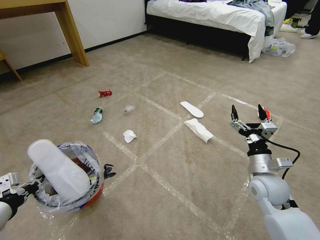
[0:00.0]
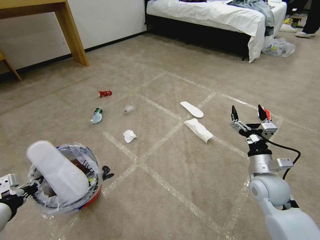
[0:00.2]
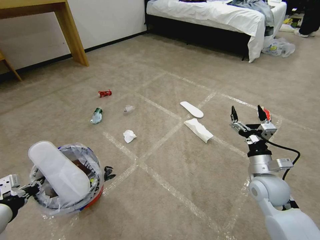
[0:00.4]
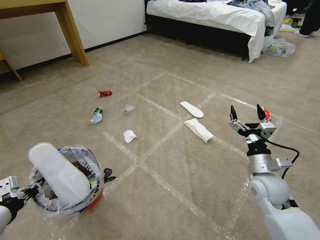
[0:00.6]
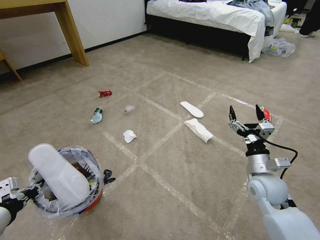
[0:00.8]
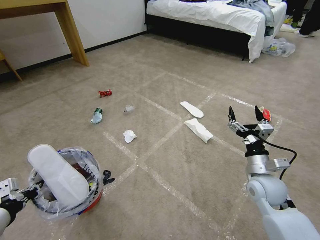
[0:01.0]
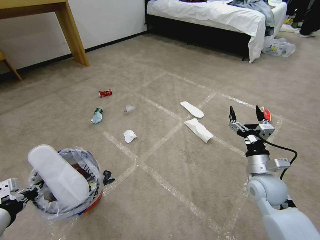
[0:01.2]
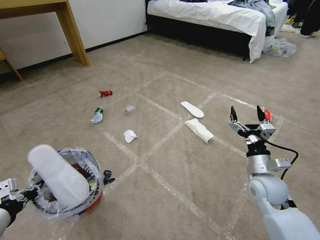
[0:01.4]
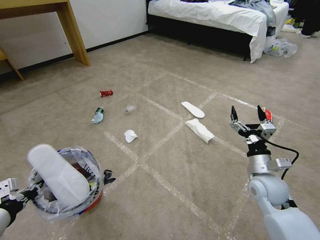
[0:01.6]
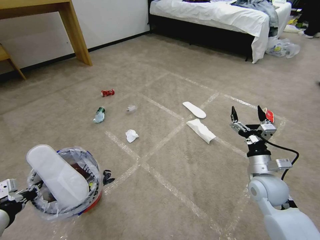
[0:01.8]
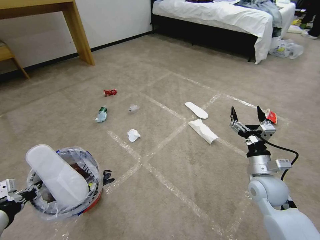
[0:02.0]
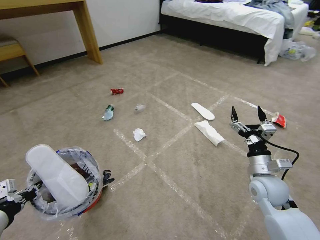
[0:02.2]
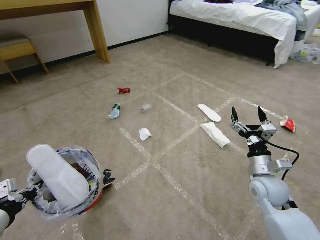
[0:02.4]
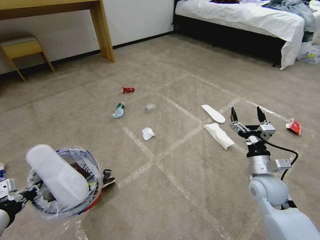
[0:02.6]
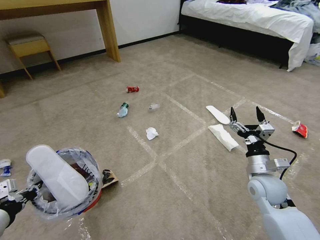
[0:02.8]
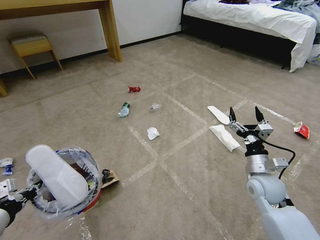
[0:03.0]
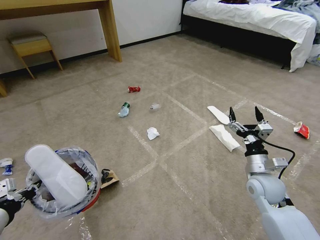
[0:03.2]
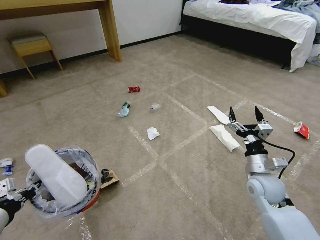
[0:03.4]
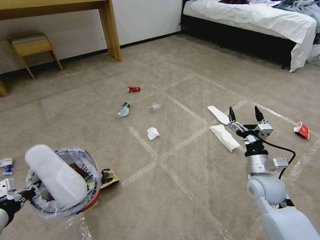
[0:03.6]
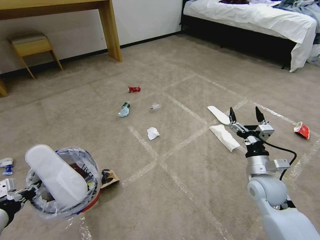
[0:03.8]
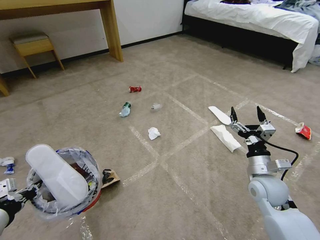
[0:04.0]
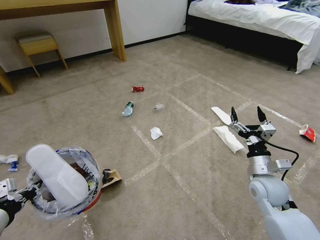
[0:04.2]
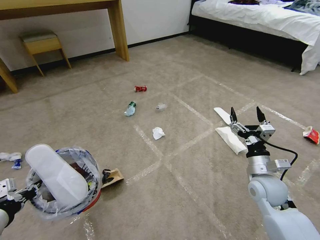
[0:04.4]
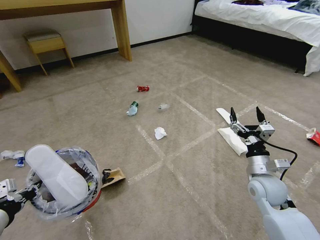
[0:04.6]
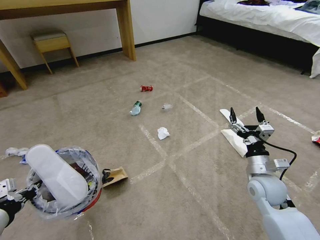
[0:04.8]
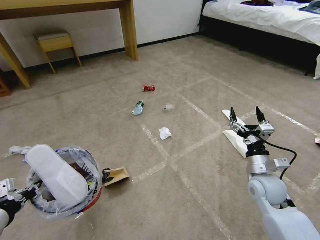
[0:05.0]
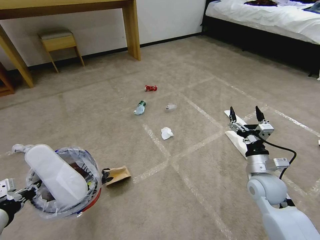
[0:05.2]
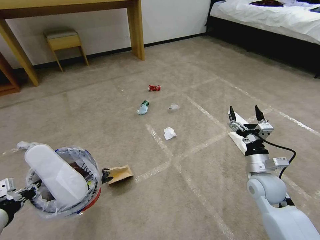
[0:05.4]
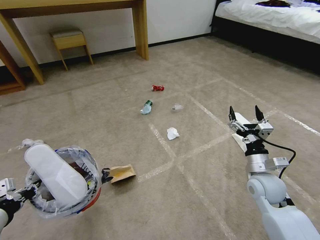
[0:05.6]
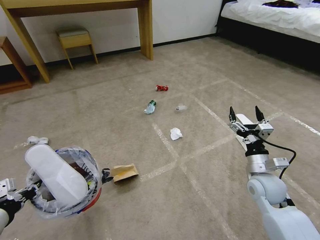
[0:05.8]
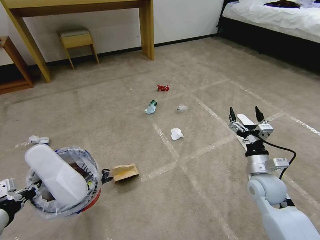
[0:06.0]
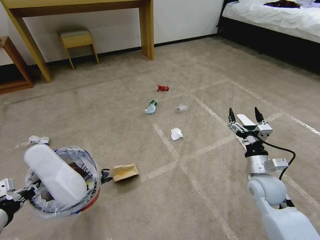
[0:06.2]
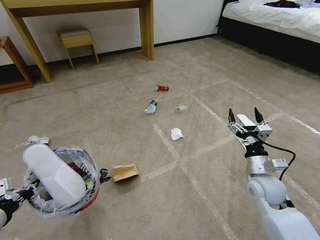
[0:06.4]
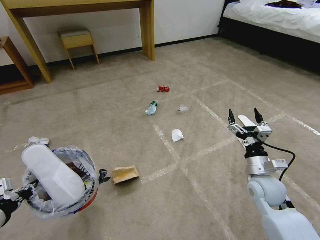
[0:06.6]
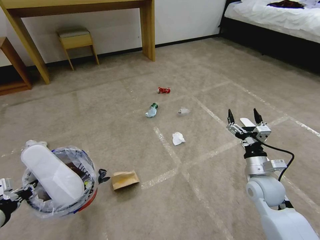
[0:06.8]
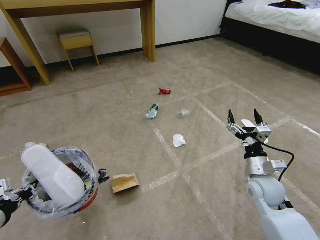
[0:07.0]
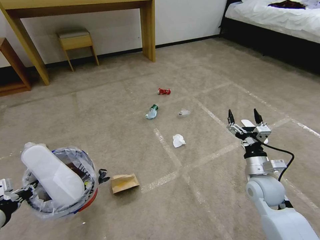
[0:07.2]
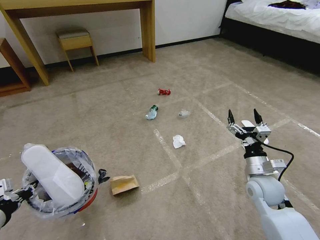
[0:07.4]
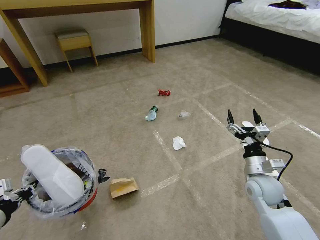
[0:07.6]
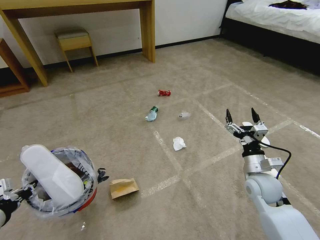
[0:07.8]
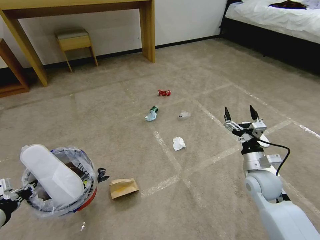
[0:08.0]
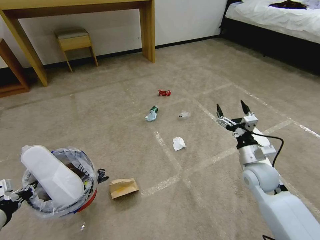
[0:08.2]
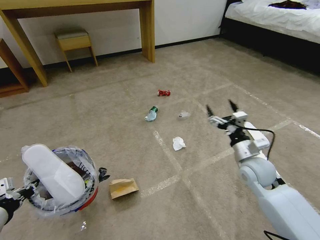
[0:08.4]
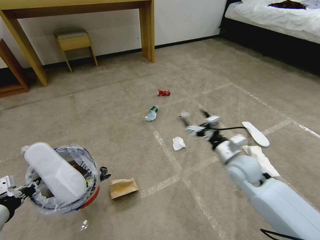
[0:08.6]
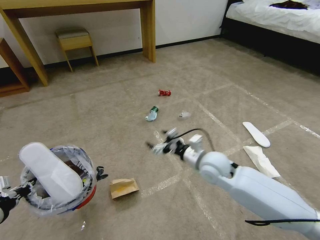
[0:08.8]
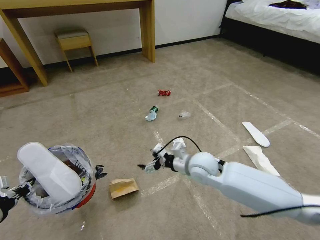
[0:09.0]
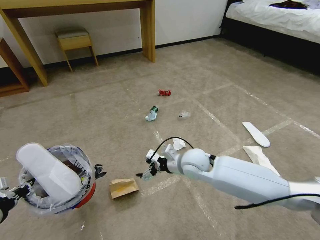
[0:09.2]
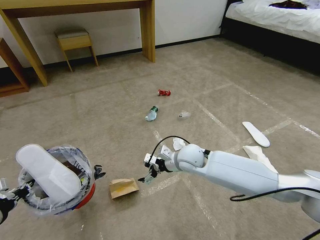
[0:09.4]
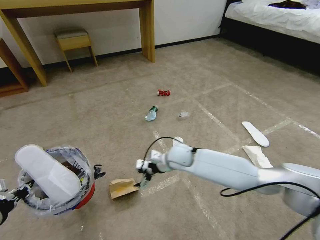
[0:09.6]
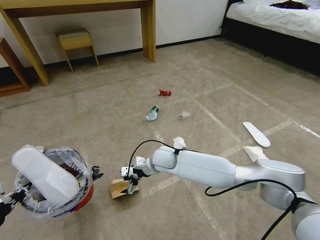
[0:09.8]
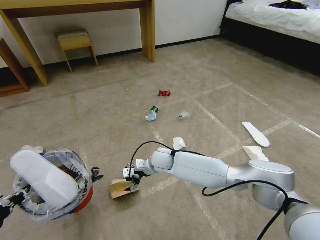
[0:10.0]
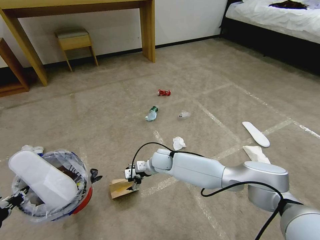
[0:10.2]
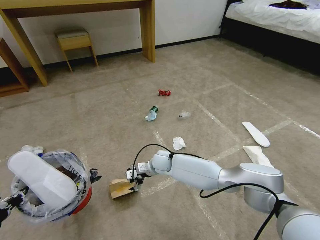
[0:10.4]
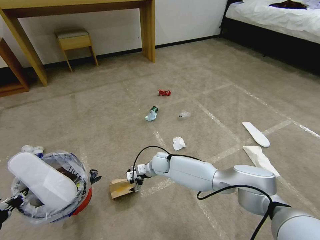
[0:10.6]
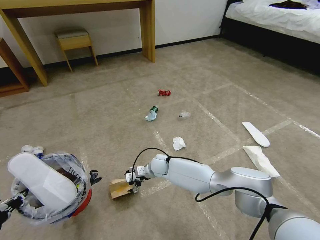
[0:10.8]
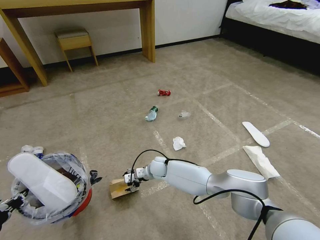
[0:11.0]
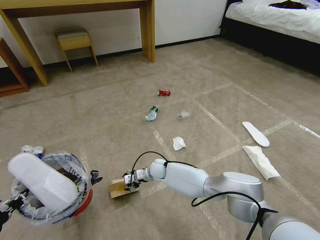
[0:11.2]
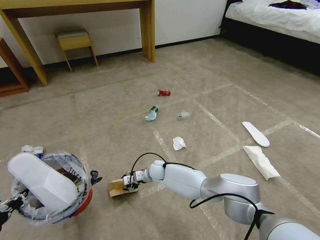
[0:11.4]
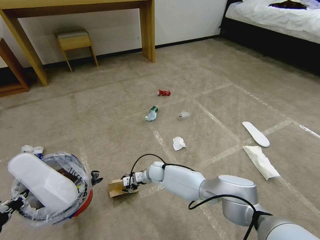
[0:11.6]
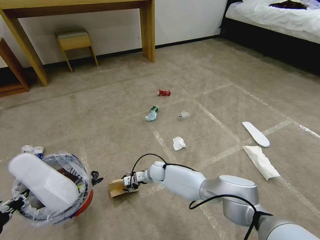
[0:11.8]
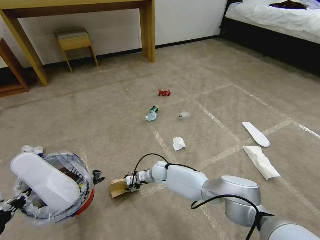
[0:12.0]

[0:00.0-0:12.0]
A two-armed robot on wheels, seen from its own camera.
Task of the whole recording: Pick up the trash bin and place the garbage on the floor into it.
0:00.0 to 0:01.6: Both grippers stay about where they are.
0:03.0 to 0:04.4: Neither gripper changes place.
0:06.0 to 0:07.6: Both grippers stay put.
0:07.6 to 0:09.0: The right gripper travels to the left by roughly 20 cm.
0:09.0 to 0:10.4: The right gripper heads to the left, downward and forward, covering about 20 cm.
0:10.4 to 0:12.0: The right gripper heads downward, covering about 10 cm.

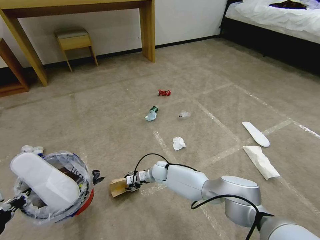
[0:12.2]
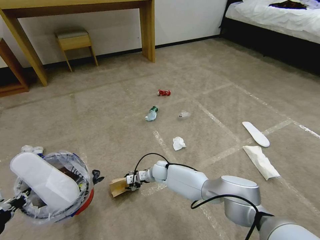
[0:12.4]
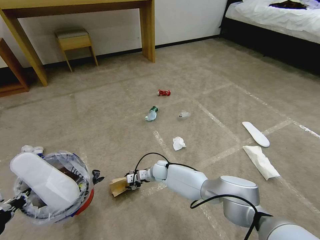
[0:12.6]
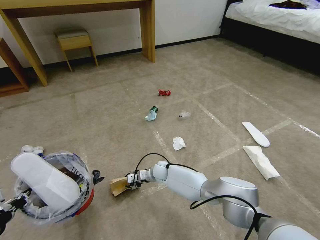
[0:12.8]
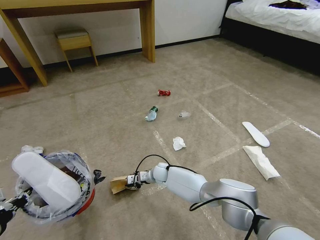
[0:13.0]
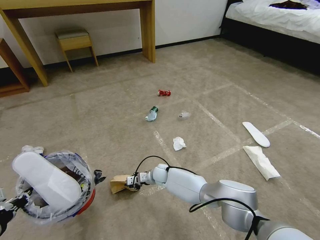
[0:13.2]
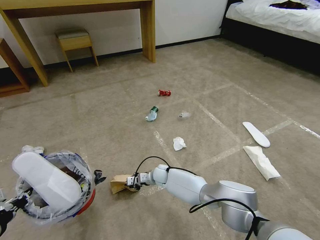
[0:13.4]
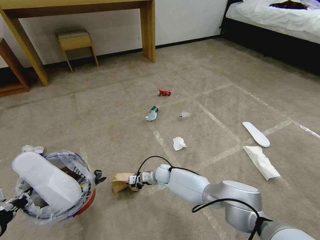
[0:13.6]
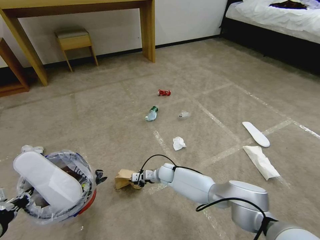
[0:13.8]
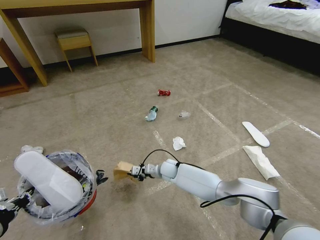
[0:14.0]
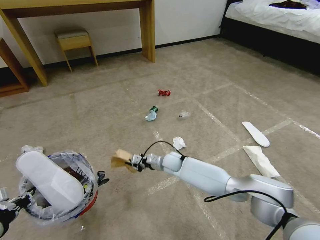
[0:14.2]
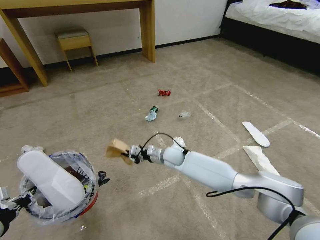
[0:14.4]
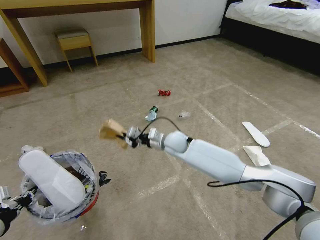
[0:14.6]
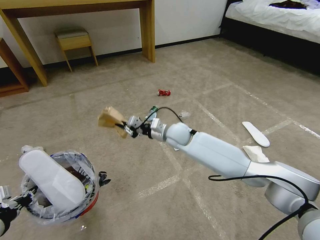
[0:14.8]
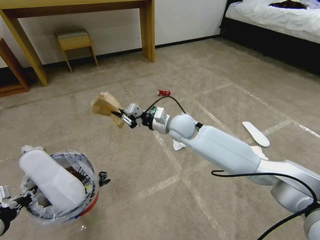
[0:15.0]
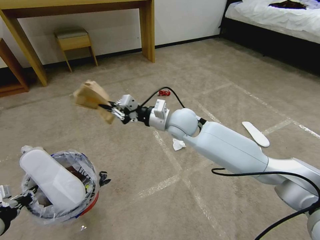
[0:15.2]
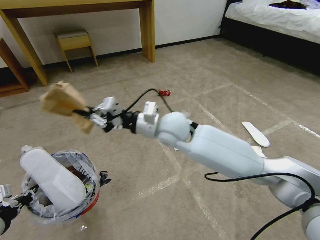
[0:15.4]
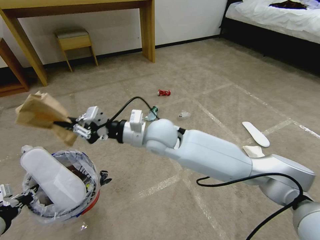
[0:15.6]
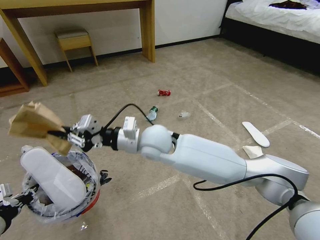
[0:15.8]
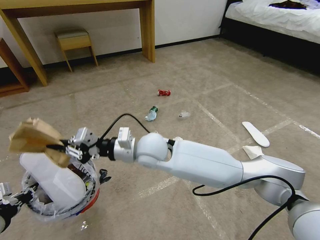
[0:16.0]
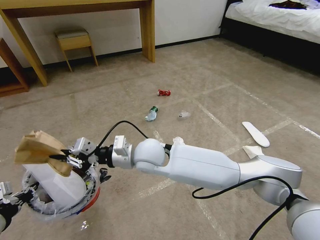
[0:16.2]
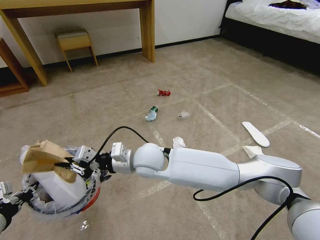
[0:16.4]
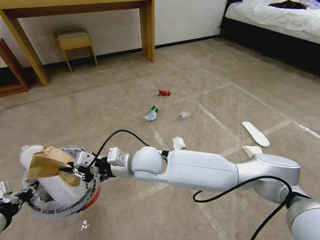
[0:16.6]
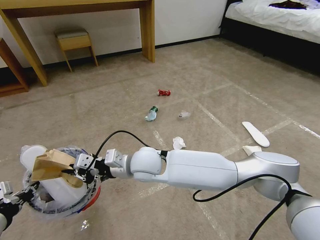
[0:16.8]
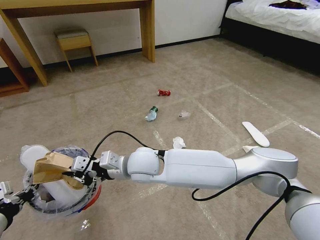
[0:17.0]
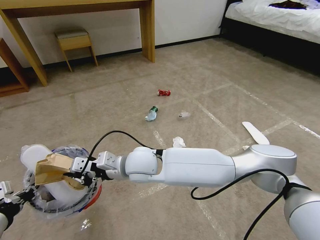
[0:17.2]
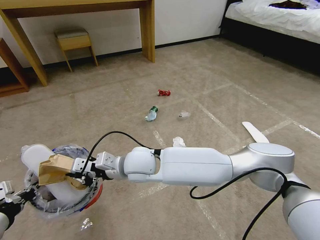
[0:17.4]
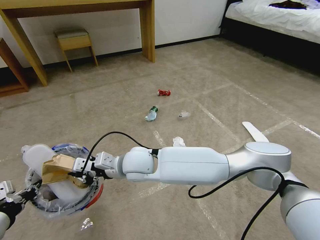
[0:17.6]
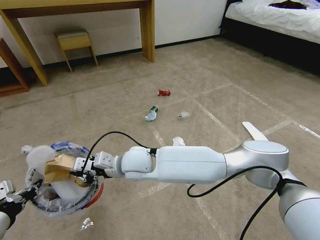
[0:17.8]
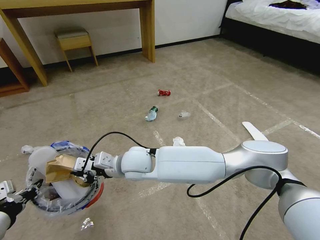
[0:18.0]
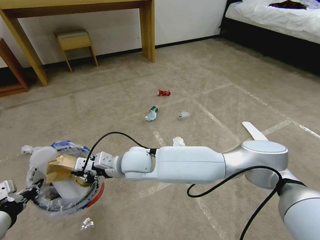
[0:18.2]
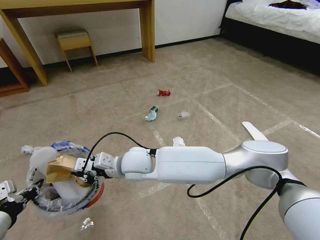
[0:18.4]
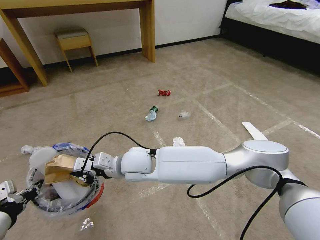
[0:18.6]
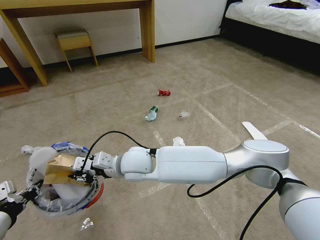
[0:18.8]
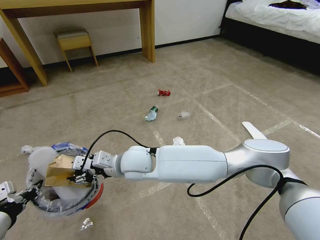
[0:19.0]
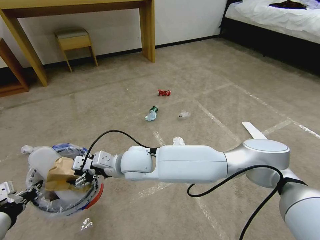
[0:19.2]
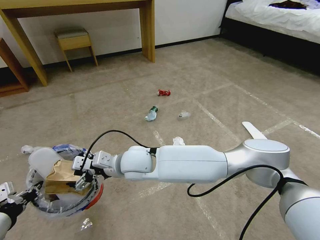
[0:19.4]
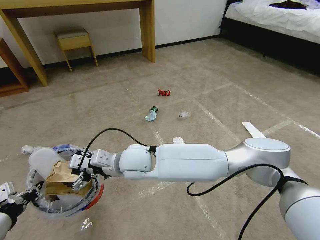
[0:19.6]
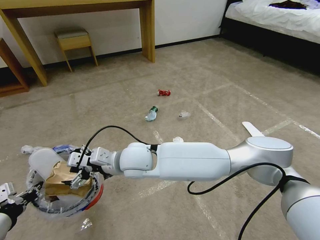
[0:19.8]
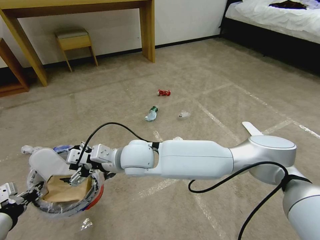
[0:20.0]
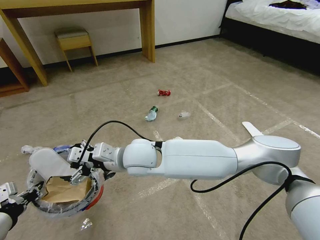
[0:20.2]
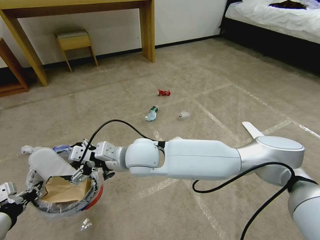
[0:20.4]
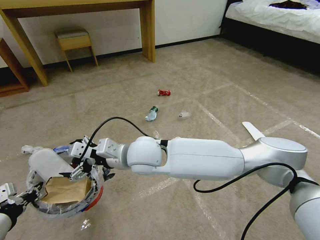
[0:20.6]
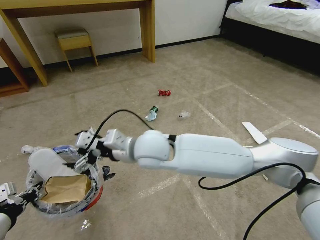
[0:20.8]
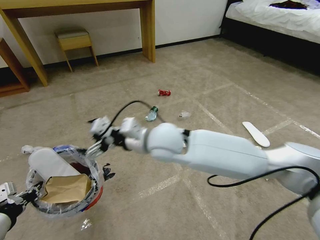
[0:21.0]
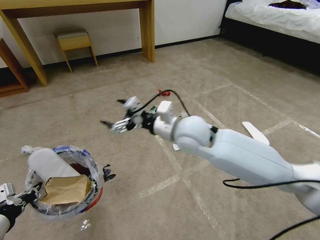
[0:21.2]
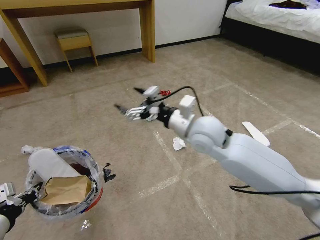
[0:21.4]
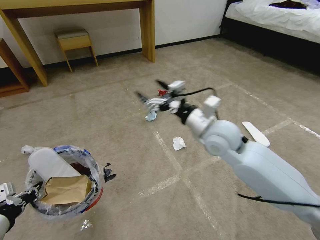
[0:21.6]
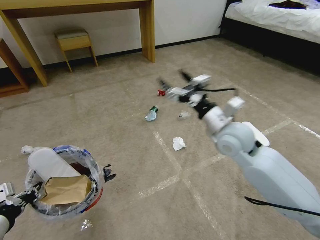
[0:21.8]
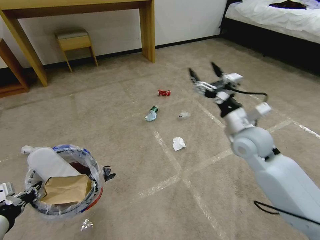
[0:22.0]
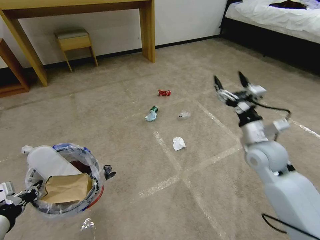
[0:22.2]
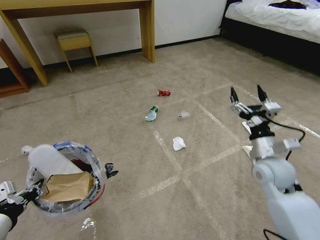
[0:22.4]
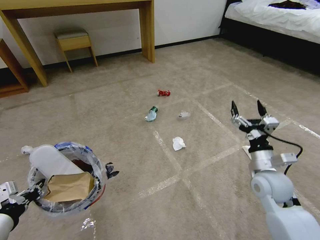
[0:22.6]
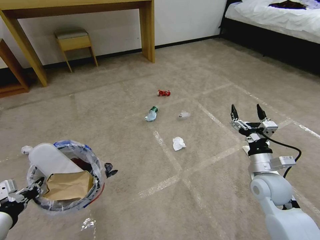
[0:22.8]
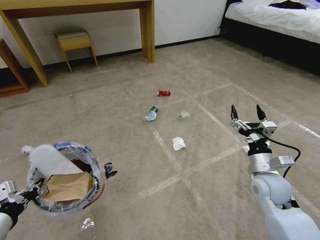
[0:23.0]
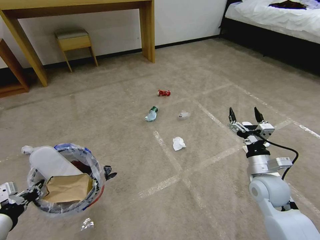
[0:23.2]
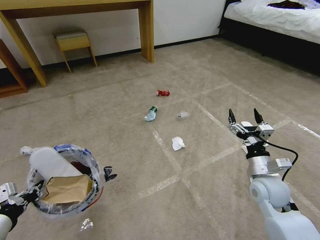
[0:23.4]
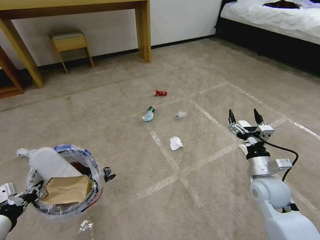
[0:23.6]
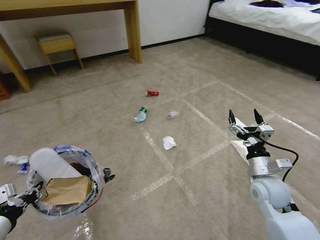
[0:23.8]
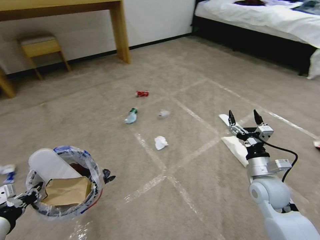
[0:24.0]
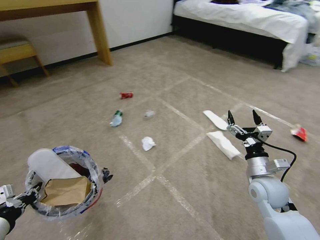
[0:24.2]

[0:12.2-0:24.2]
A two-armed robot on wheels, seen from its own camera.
Task of the whole recording: Pick up the trash bin and place the garbage on the floor into it.
0:12.2 to 0:13.8: The right gripper closes up.
0:13.8 to 0:15.2: The right gripper moves upward, roughly 35 cm.
0:15.2 to 0:16.6: The right gripper goes approximately 15 cm to the left, backward and downward.
0:16.6 to 0:18.2: The grippers stay close to where they were, moving slightly.
0:18.2 to 0:19.8: The right gripper opens up.
0:19.8 to 0:21.2: The right gripper shifts roughly 15 cm to the right and upward.
0:21.2 to 0:22.6: The right gripper moves to the right and downward, approximately 30 cm.
